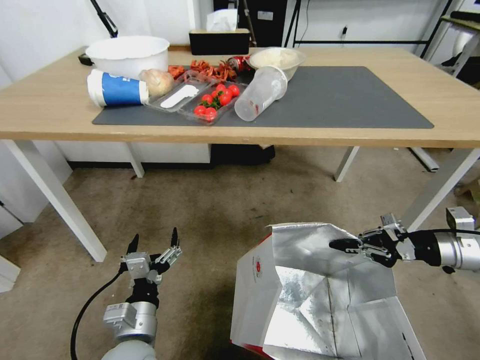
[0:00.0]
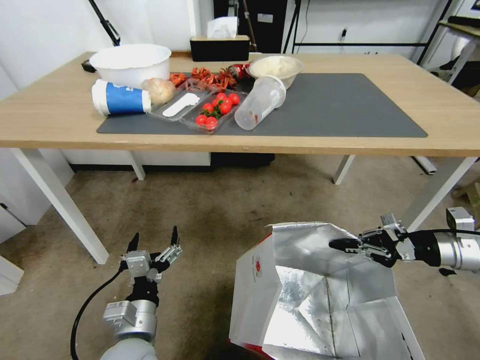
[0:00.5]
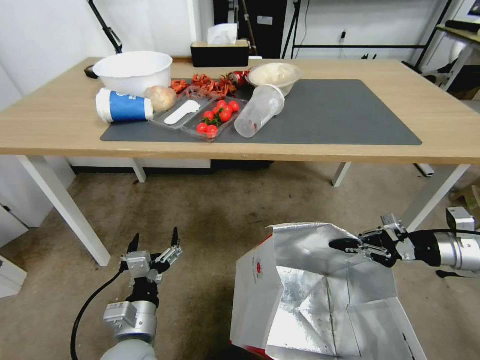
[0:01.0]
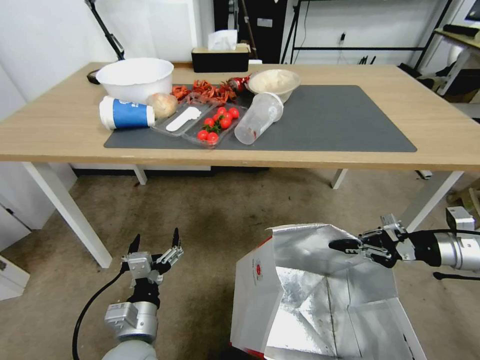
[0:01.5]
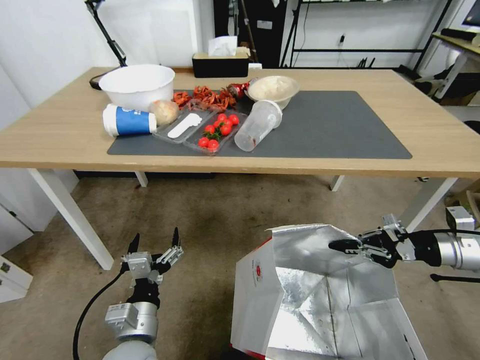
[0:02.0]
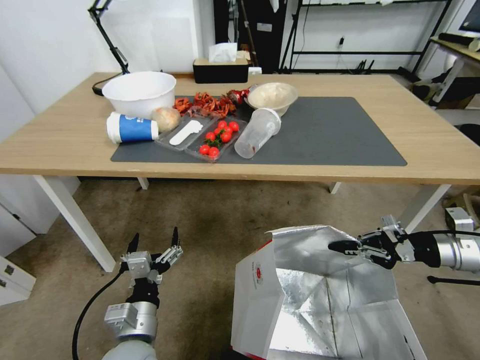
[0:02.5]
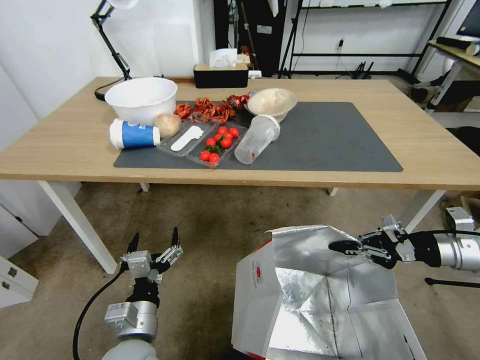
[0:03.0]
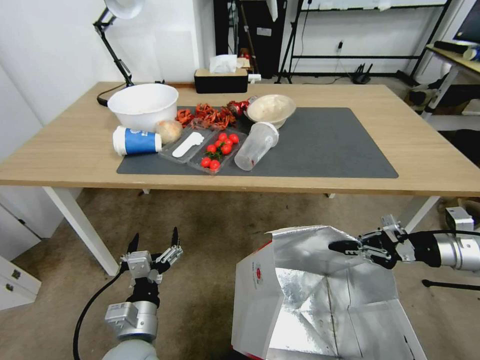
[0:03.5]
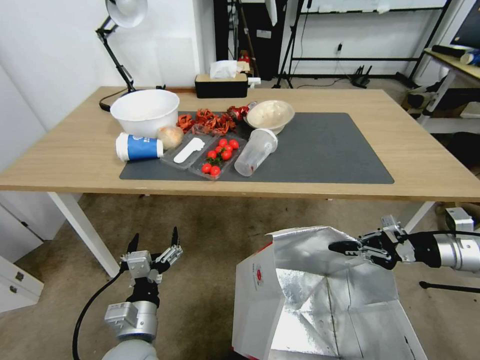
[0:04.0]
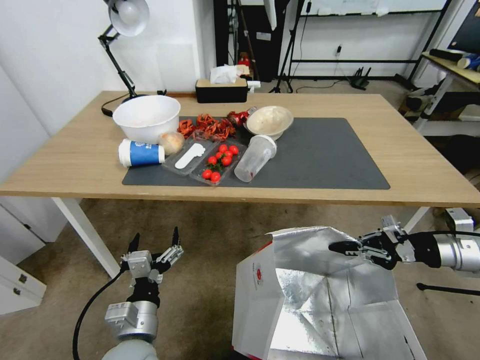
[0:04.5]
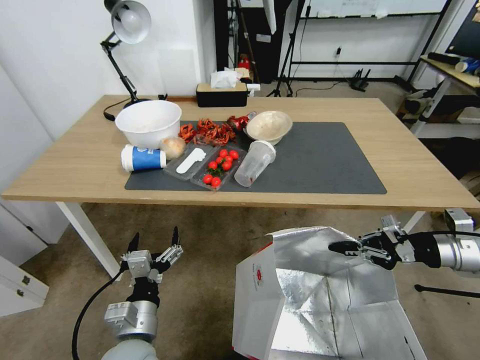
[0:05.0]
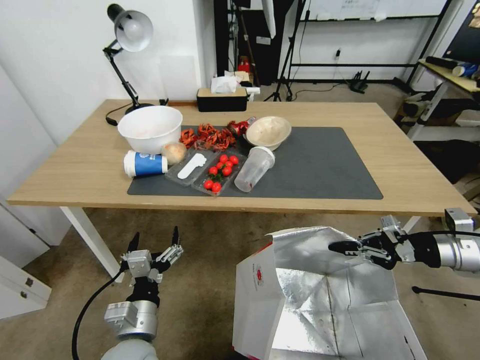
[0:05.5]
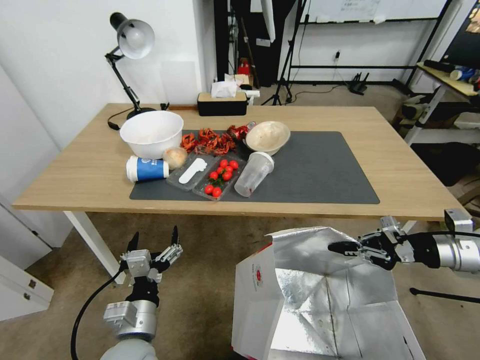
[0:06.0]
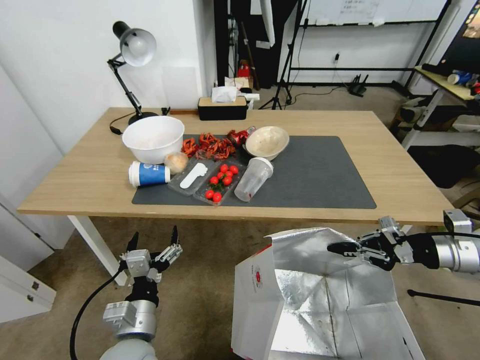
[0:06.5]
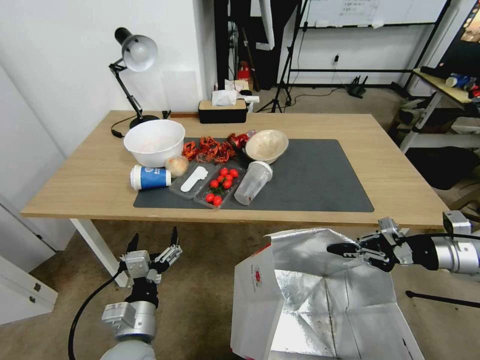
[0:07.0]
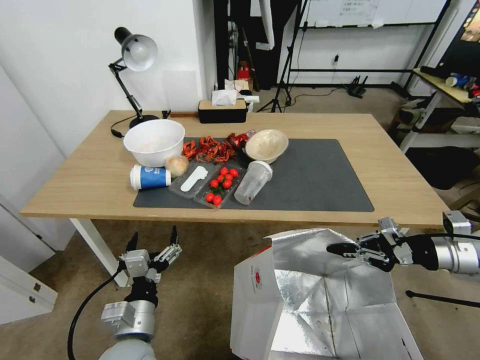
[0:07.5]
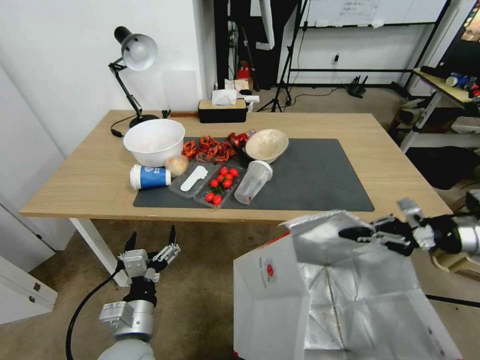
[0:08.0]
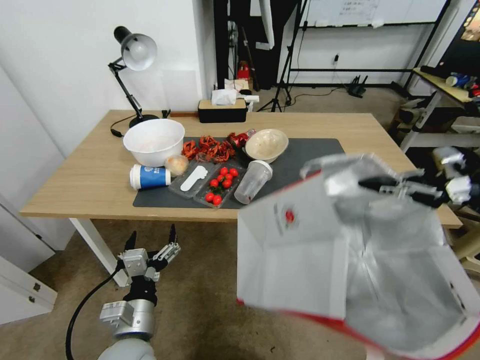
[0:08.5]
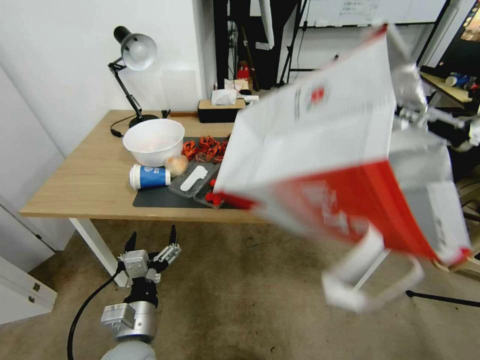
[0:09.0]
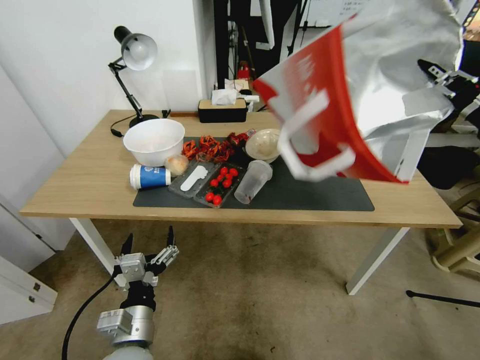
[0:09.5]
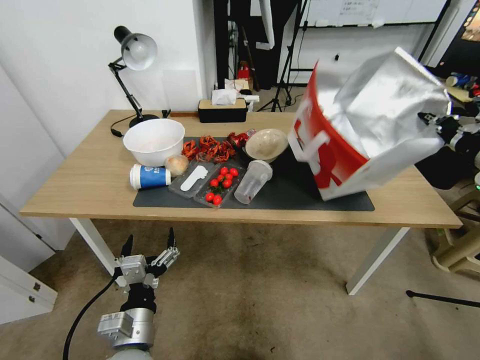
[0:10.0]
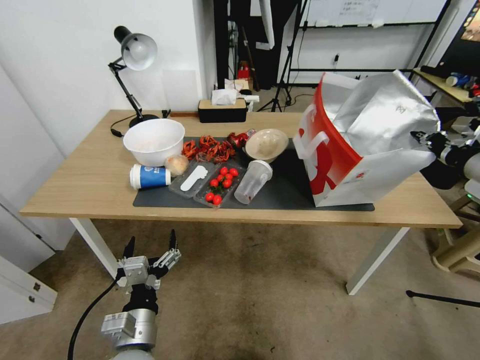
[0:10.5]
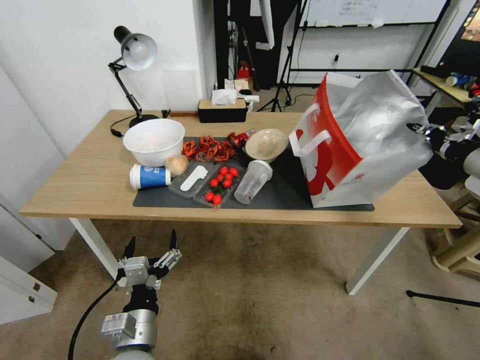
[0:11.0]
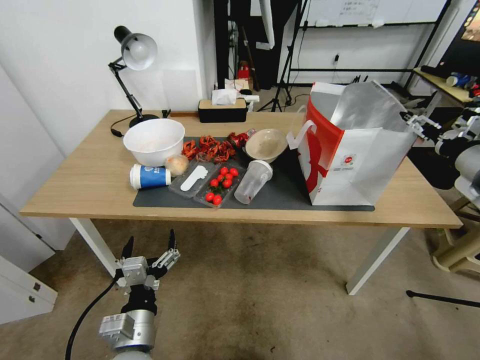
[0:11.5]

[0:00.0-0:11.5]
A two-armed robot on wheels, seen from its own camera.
Task of the whole recording: Pick up the food delivery bag from the floor and place it on the table.
0:07.5 to 0:09.5: The right gripper moves upward, some 15 cm.
0:09.5 to 0:11.5: The right gripper opens its fingers.

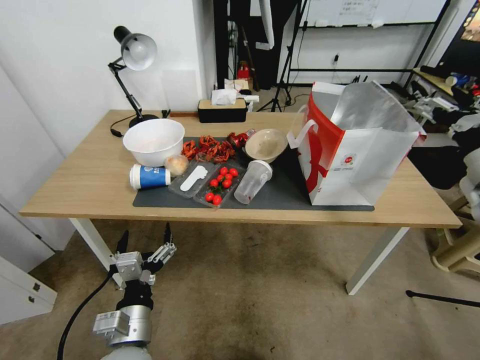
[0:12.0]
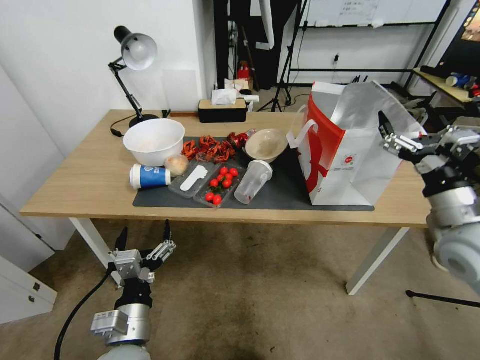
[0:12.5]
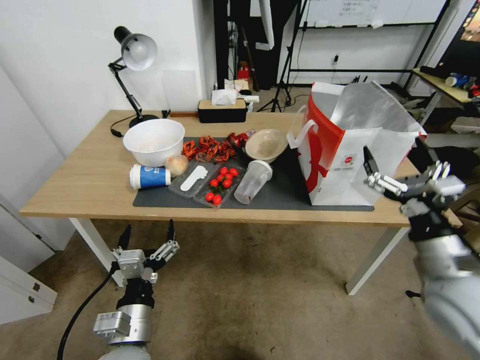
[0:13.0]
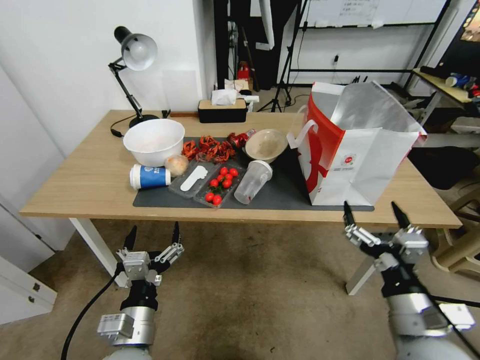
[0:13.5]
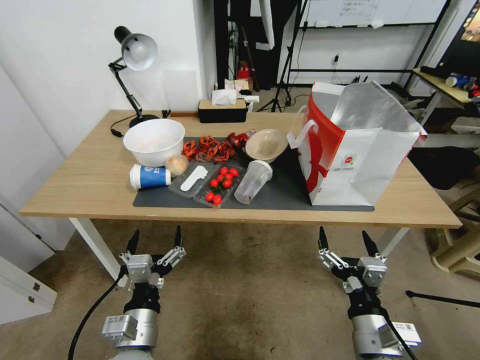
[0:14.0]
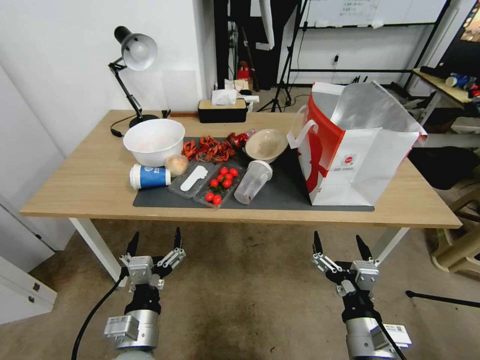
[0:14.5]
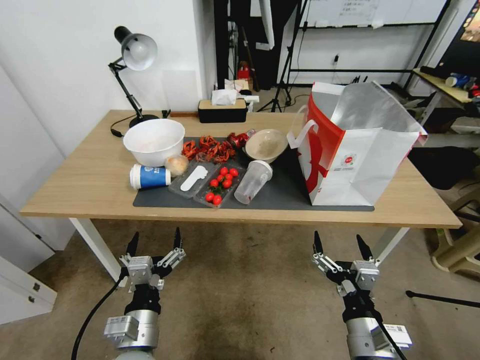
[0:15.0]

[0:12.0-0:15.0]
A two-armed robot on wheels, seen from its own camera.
Task of the whole recording: Pick up the food delivery bag from the floor and place it on the table.
0:12.0 to 0:13.5: The right gripper moves backward, downward and to the left, approximately 30 cm.
0:13.5 to 0:15.0: The right gripper travels downward and to the left by some 10 cm.
